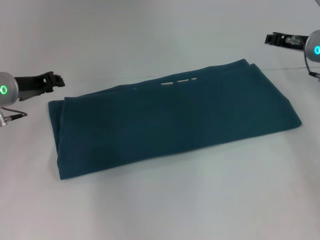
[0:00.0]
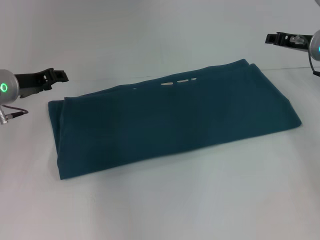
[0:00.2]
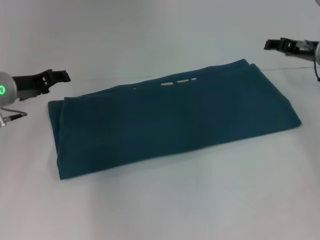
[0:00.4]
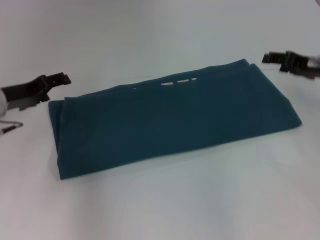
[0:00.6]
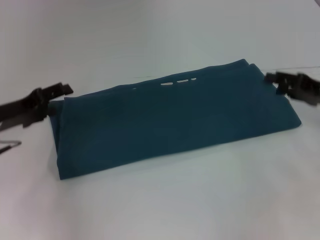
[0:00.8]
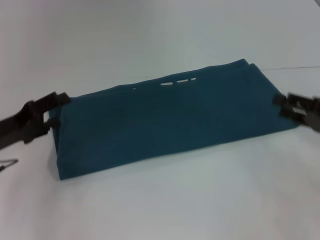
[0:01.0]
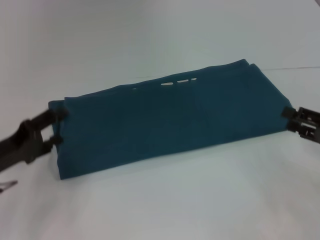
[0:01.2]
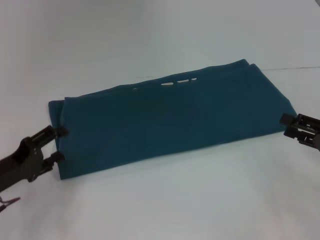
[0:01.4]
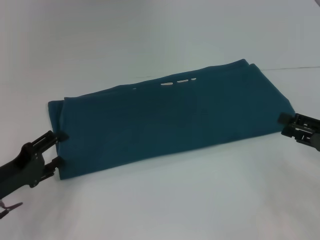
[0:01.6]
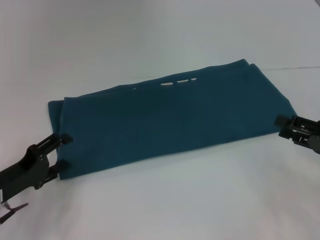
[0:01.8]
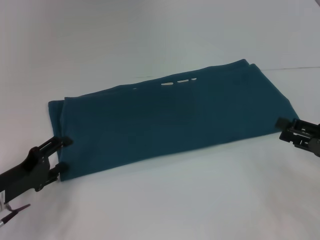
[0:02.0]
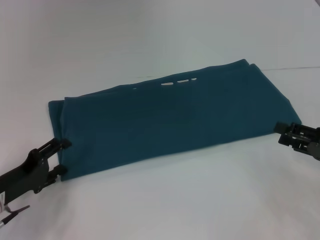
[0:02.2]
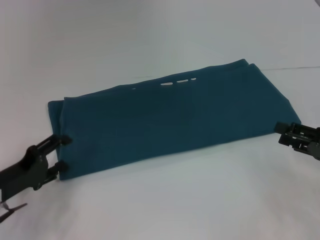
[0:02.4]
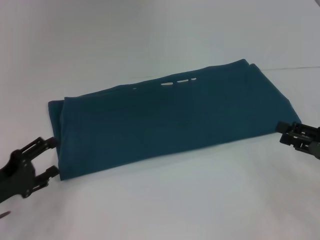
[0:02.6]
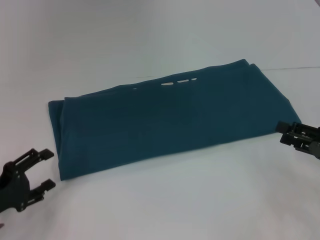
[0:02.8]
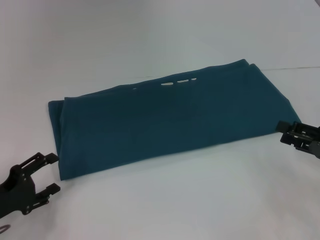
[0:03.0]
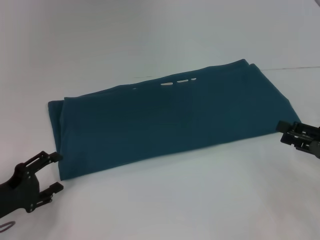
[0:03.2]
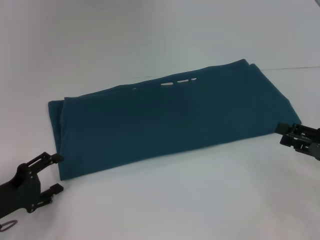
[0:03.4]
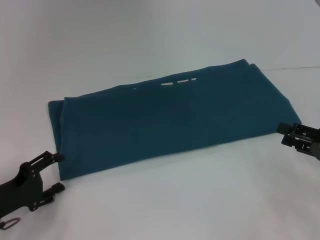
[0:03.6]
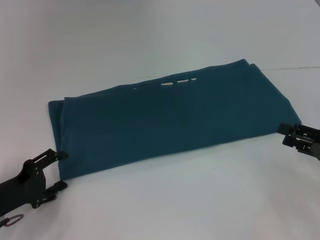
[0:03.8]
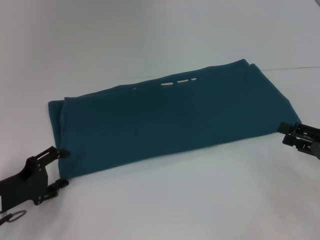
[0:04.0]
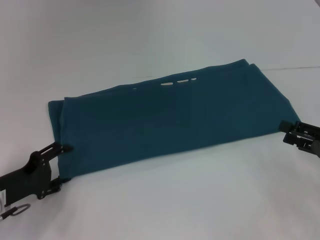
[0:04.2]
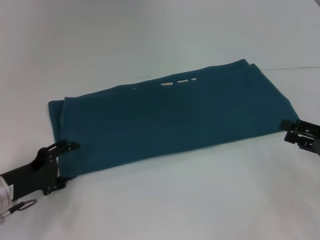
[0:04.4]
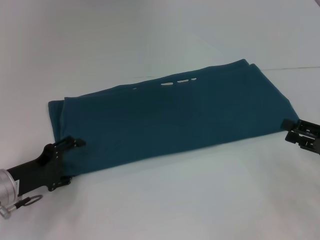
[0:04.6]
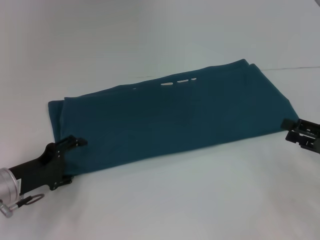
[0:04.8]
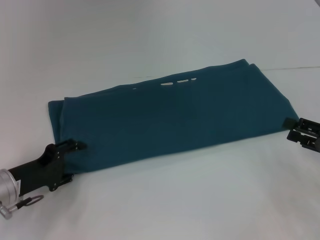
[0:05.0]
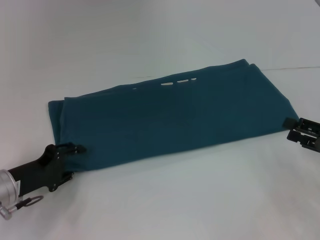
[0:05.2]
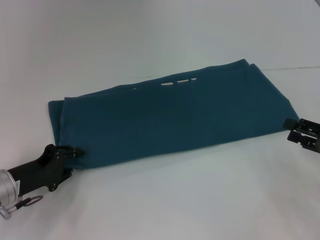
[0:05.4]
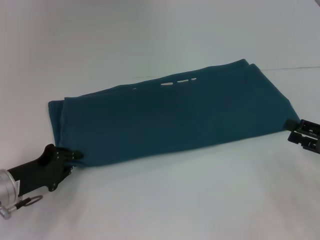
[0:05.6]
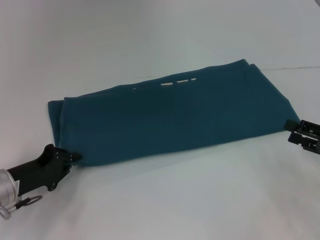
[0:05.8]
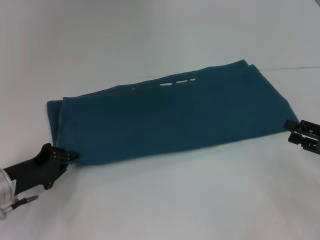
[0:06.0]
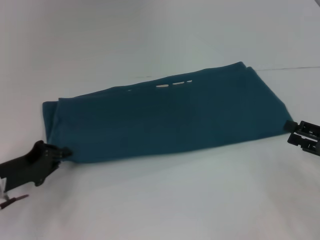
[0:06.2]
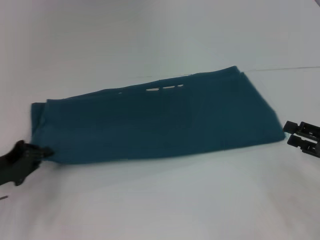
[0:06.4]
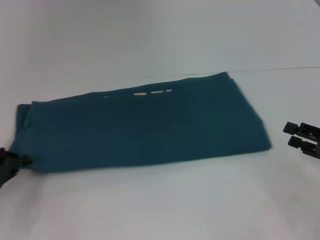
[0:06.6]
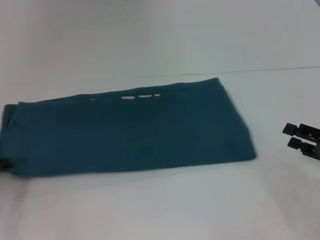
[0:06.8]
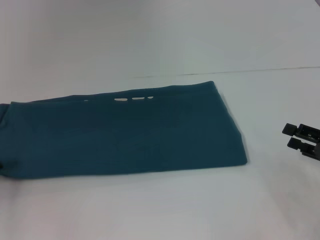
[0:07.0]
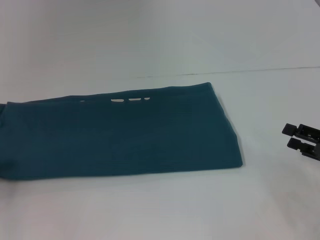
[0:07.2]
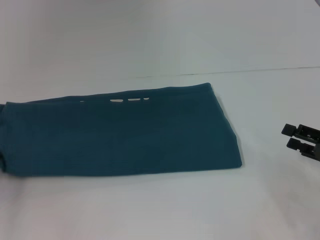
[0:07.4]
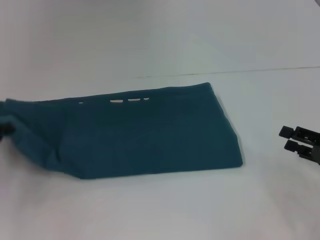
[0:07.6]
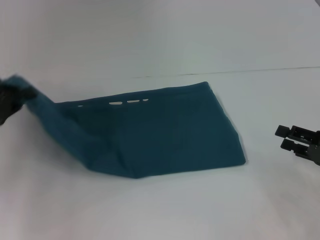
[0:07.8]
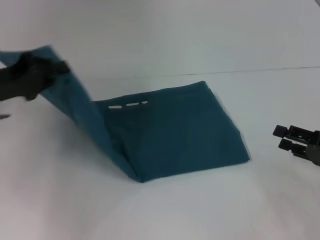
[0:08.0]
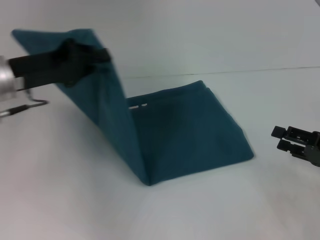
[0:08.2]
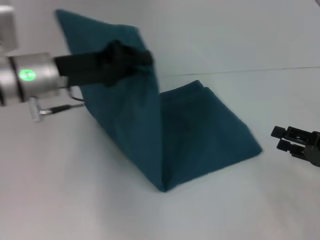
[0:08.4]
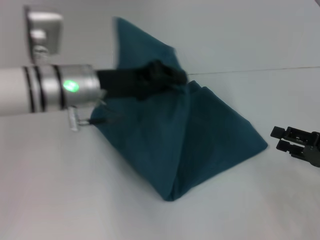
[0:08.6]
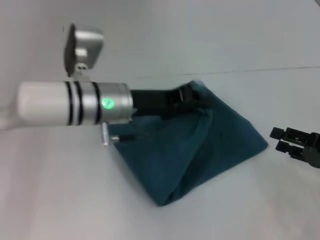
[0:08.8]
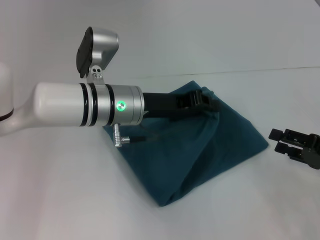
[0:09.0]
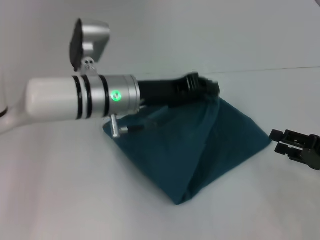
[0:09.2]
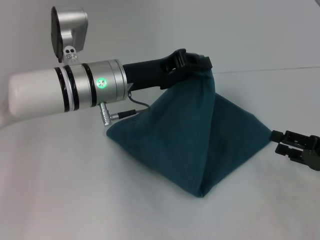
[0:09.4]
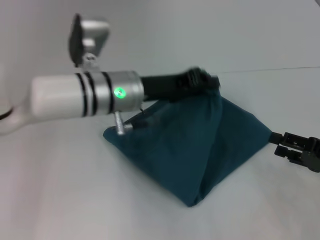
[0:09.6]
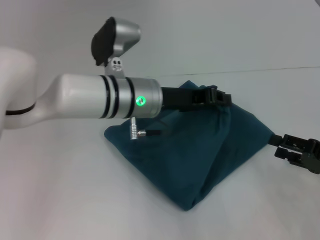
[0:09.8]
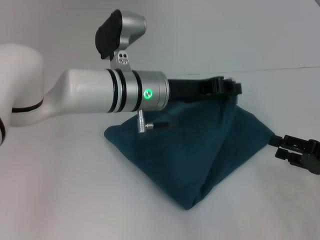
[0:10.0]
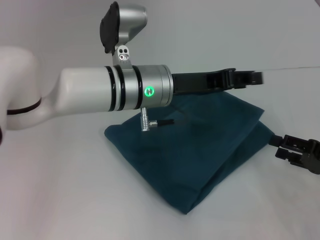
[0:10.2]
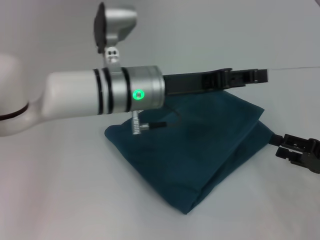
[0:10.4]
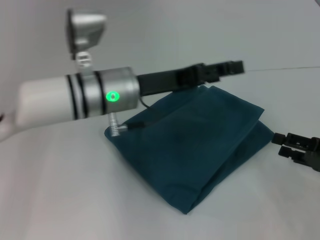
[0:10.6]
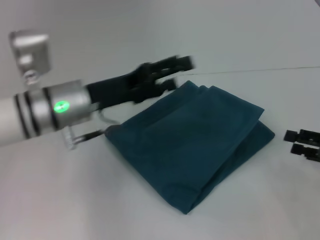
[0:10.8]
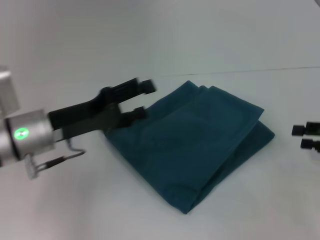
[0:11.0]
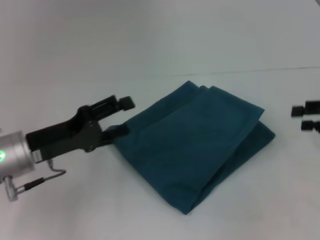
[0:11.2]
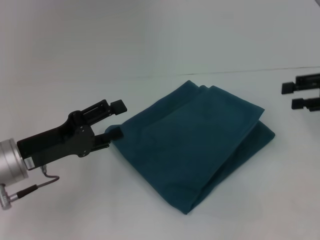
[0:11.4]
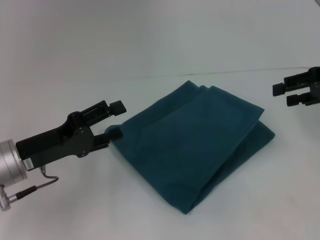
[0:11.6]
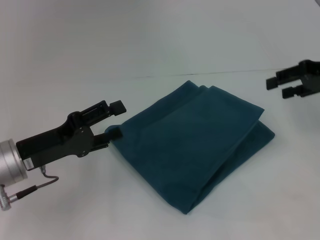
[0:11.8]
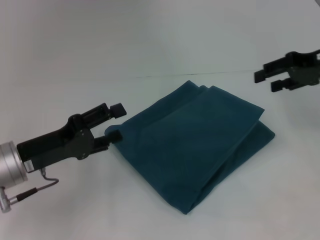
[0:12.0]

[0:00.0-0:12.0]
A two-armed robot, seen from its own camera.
Step, 0:00.0 to 0:10.2: Fold the clothes to the left.
0:00.0 to 0:01.6: The left gripper is displaced backward and downward by some 20 cm, and opens up; the right gripper goes about 20 cm backward, and opens its fingers.
0:01.6 to 0:03.0: The grippers make only small movements.
0:03.0 to 0:04.4: The left gripper goes approximately 5 cm forward.
0:04.4 to 0:06.0: The left gripper closes.
0:06.0 to 0:07.6: The left gripper goes some 10 cm to the left and upward.
0:07.6 to 0:09.0: The left gripper travels to the right by approximately 30 cm.
0:09.0 to 0:10.4: The left gripper opens up.
0:10.4 to 0:12.0: The right gripper moves upward and forward, approximately 20 cm. The left gripper travels to the left and backward by about 20 cm, and opens up.

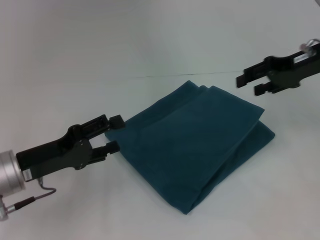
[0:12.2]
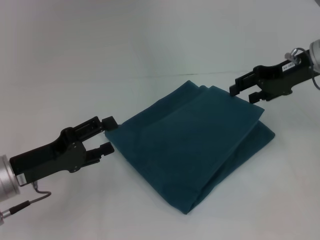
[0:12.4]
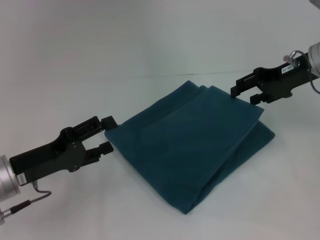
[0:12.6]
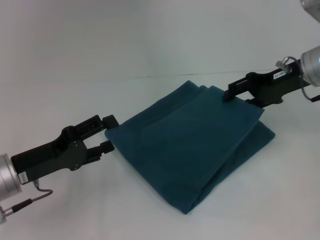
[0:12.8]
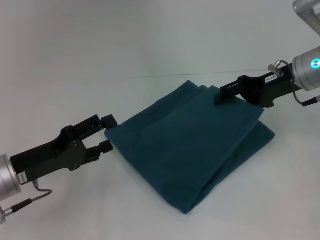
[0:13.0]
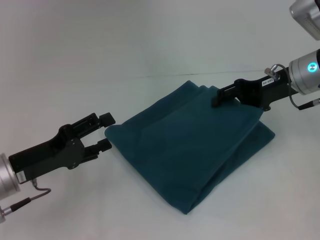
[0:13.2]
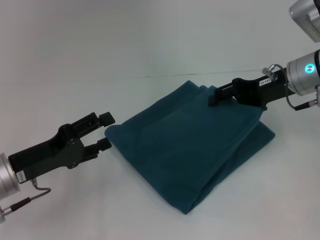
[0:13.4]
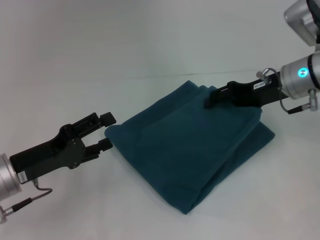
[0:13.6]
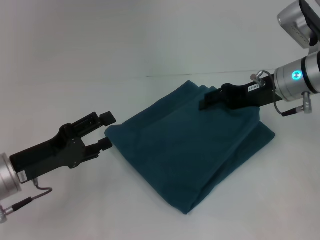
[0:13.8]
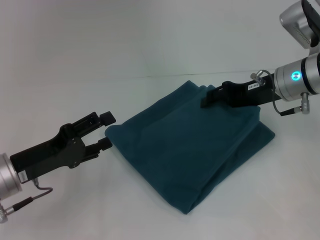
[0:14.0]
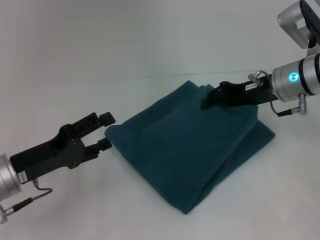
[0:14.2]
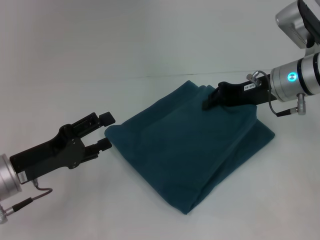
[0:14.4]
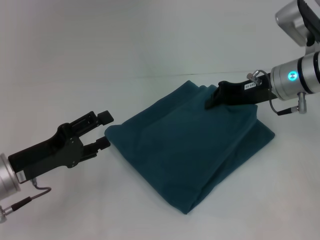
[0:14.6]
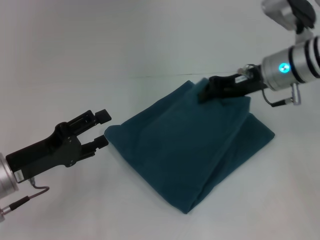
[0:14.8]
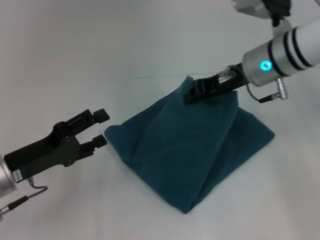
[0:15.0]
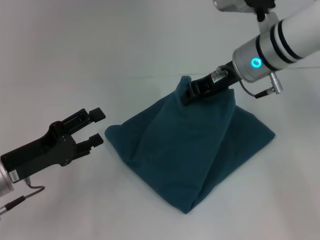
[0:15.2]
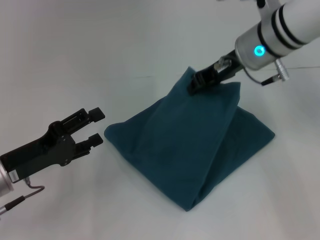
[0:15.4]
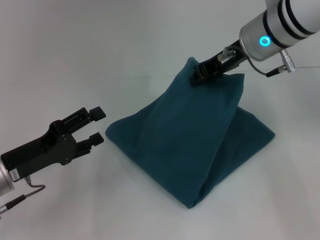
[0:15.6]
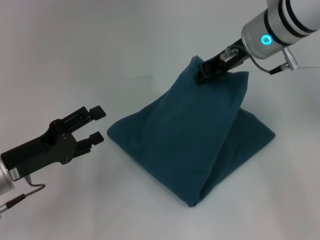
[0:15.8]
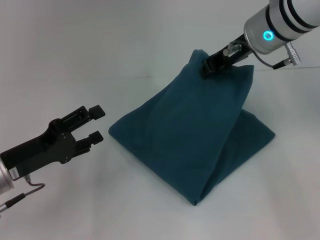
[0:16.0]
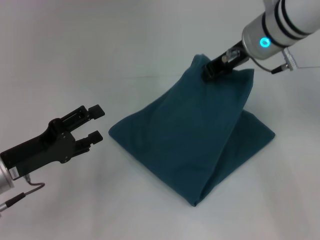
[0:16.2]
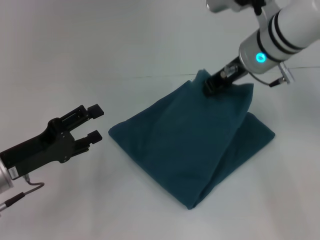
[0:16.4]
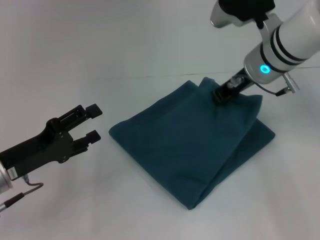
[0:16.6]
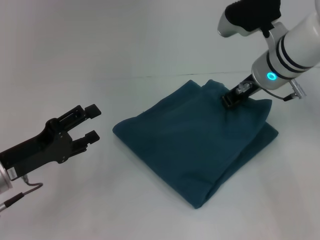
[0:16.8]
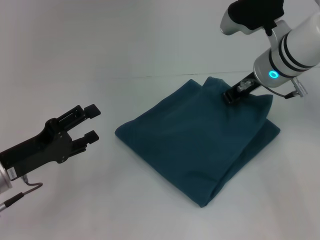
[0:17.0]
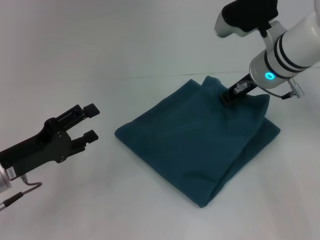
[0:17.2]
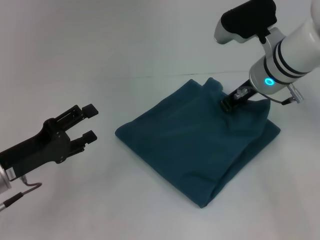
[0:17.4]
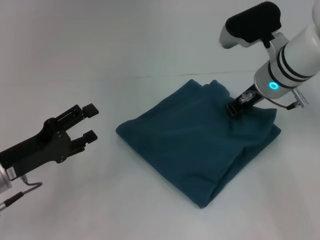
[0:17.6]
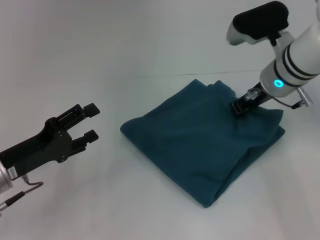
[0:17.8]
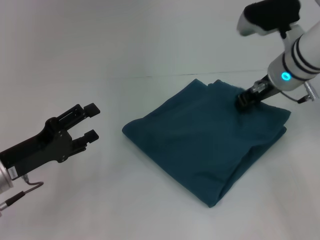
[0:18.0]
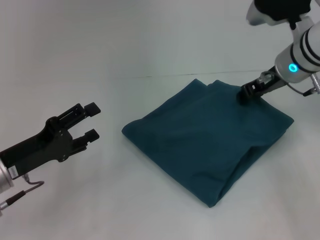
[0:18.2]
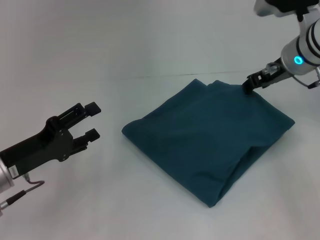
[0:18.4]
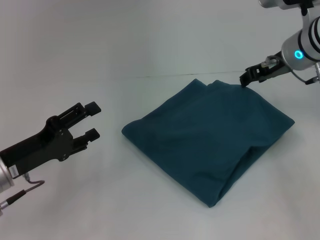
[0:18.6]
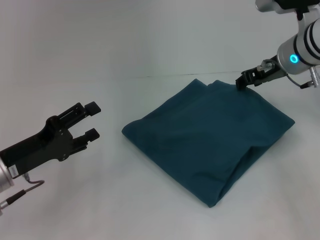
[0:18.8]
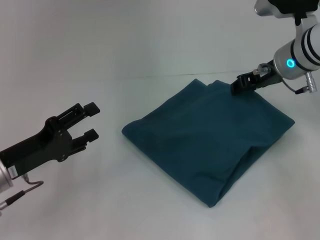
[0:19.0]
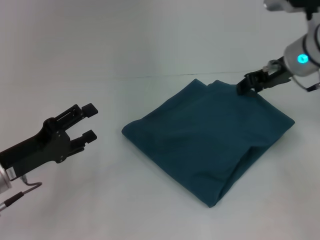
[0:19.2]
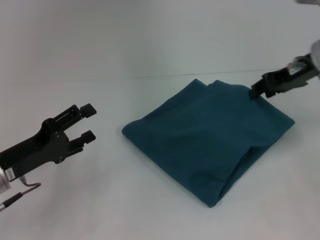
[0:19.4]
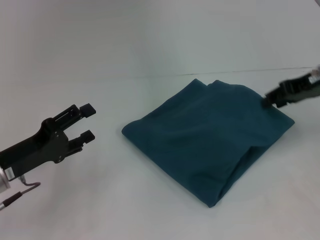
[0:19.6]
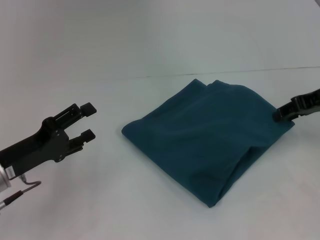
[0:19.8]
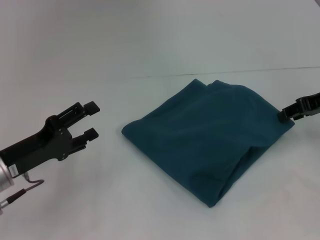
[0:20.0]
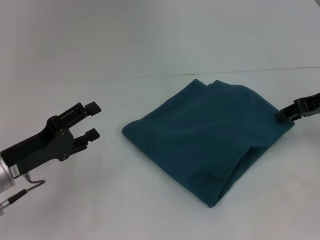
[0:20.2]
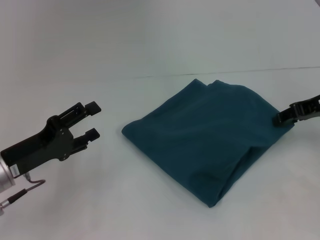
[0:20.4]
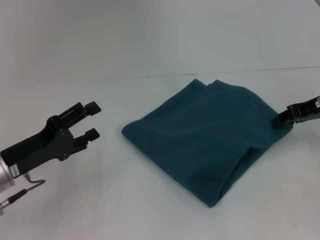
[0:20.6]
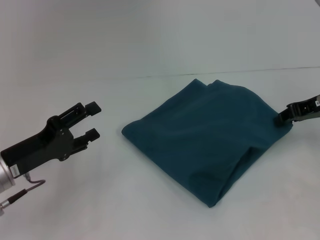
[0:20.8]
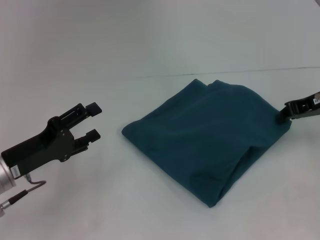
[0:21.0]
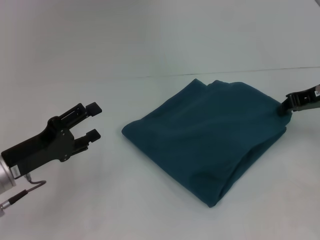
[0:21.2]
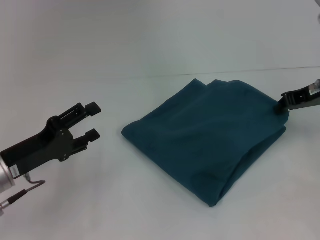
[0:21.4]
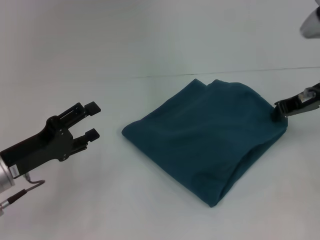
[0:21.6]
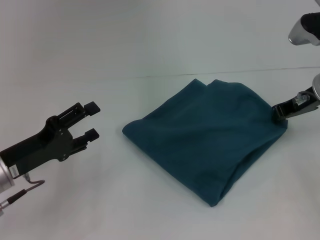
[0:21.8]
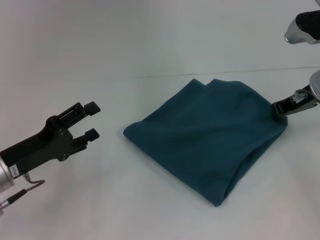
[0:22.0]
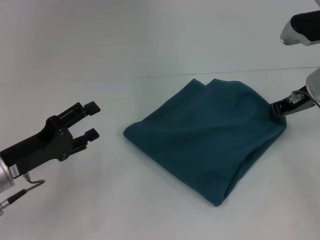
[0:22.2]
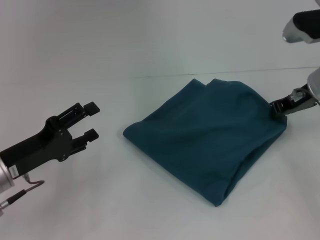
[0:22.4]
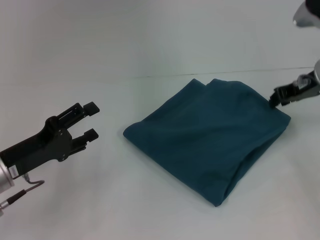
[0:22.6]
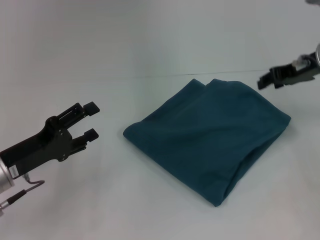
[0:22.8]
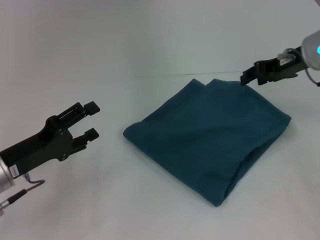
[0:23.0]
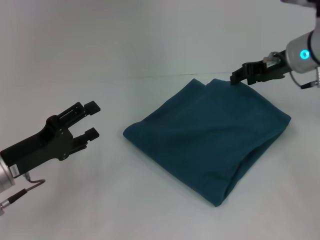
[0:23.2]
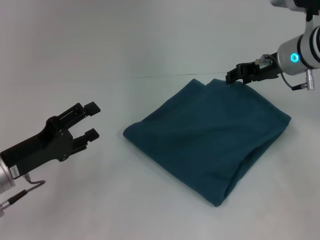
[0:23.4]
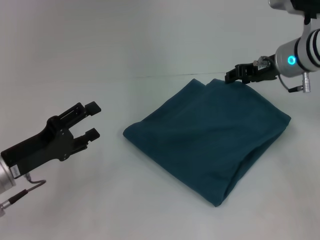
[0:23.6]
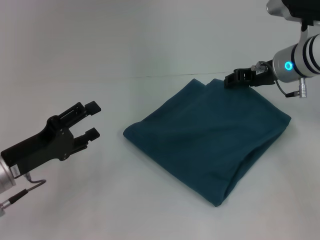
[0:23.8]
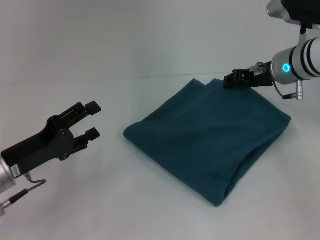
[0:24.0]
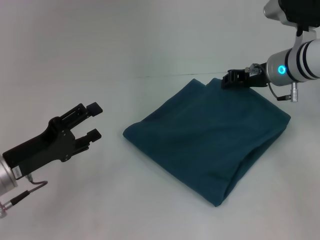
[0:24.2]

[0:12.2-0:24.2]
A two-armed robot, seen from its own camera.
0:12.2 to 0:13.8: The right gripper goes roughly 10 cm downward and to the left.
0:13.8 to 0:15.2: The right gripper shifts approximately 5 cm to the left, and closes.
0:15.2 to 0:16.6: The grippers stay close to where they were, moving slightly.
0:16.6 to 0:18.2: The right gripper changes place by approximately 5 cm.
0:18.2 to 0:19.8: The right gripper heads to the right, covering approximately 10 cm.
0:19.8 to 0:21.2: The right gripper closes.
0:21.2 to 0:22.6: There are only small adjustments of the grippers.
0:22.6 to 0:24.2: The right gripper travels to the left by roughly 5 cm, and opens.
